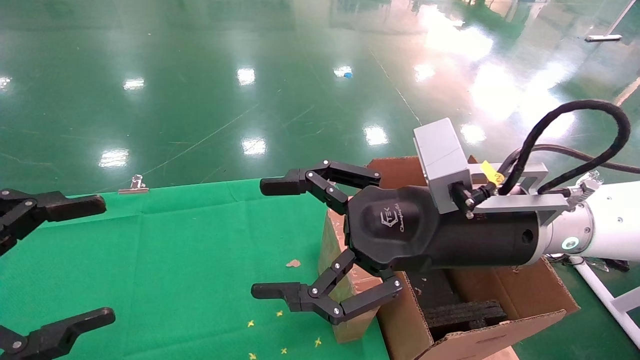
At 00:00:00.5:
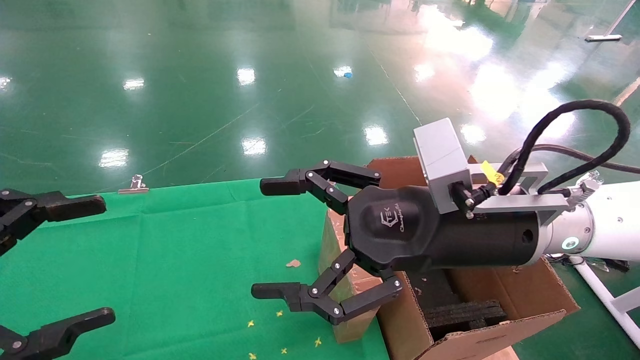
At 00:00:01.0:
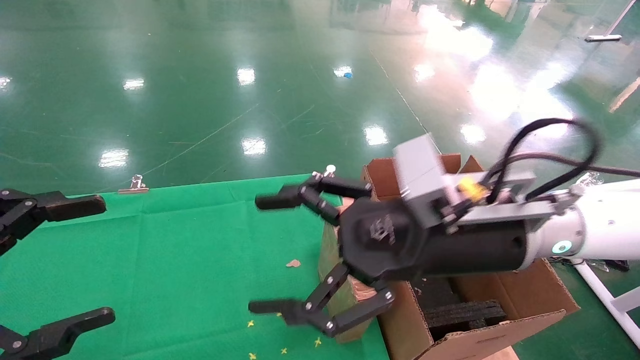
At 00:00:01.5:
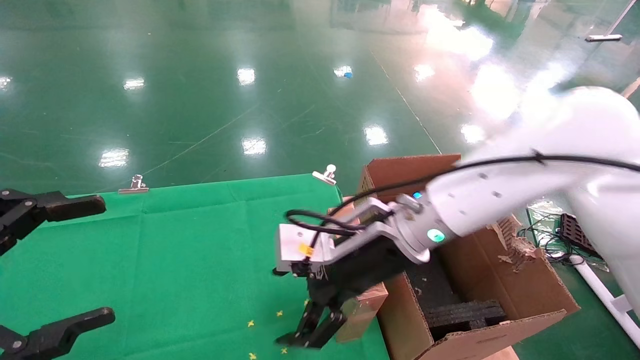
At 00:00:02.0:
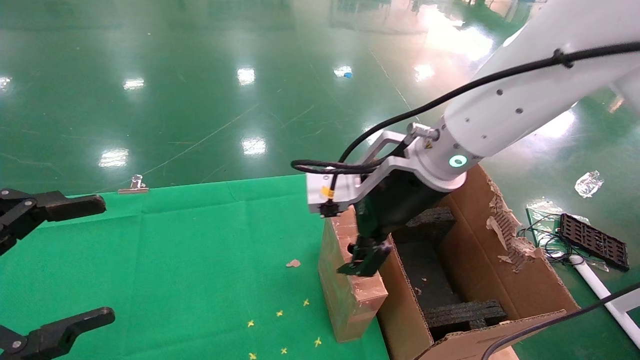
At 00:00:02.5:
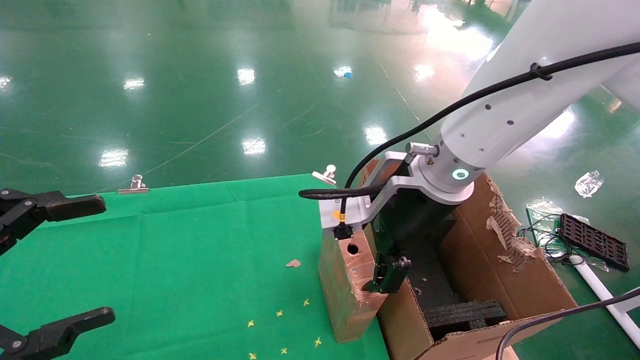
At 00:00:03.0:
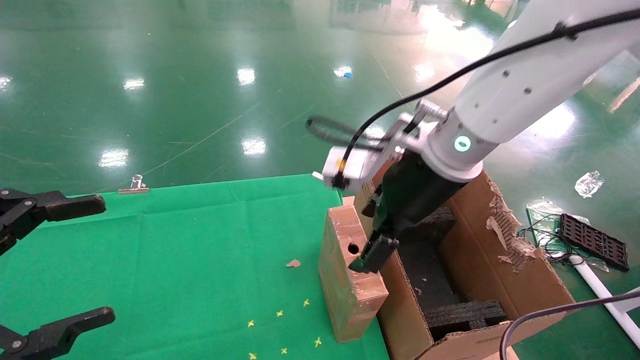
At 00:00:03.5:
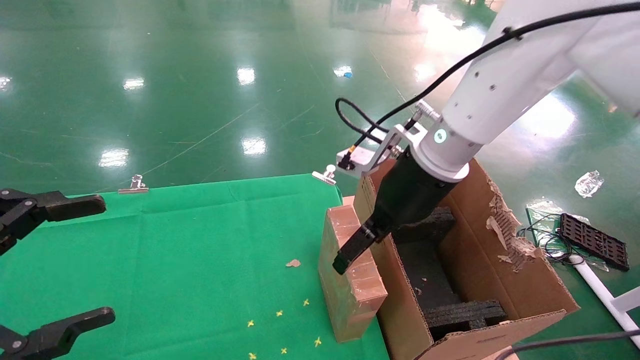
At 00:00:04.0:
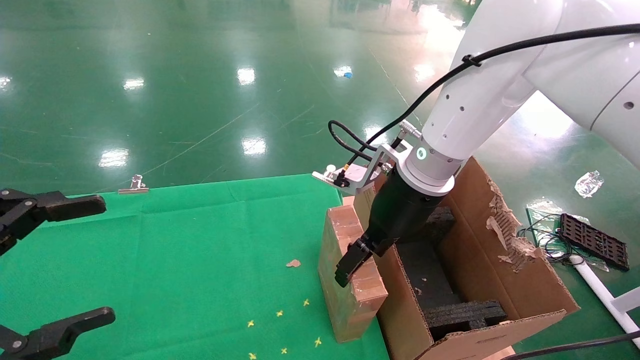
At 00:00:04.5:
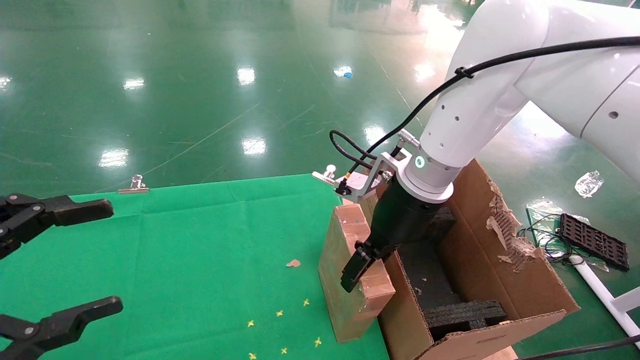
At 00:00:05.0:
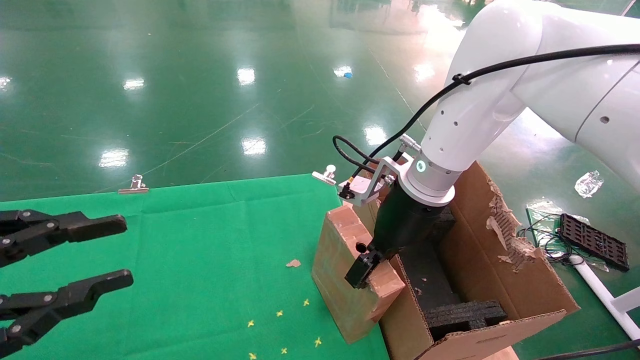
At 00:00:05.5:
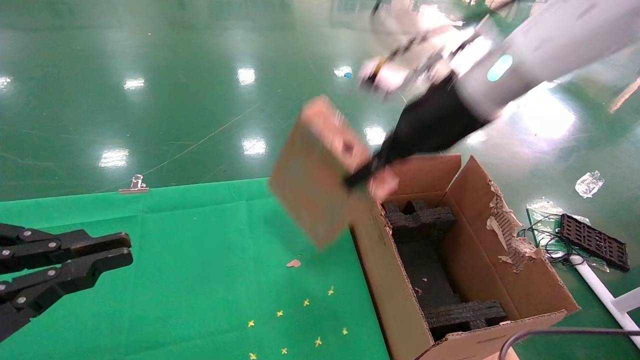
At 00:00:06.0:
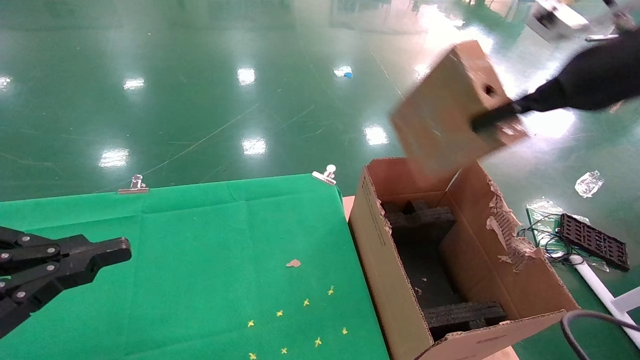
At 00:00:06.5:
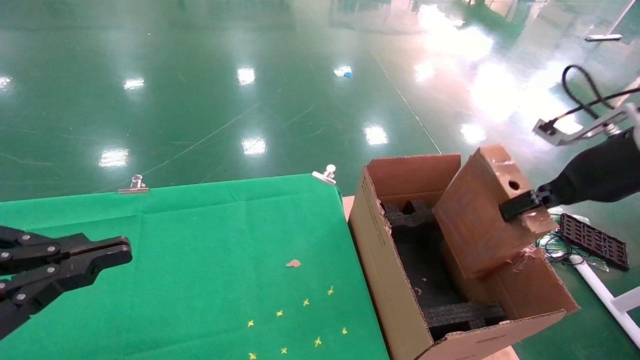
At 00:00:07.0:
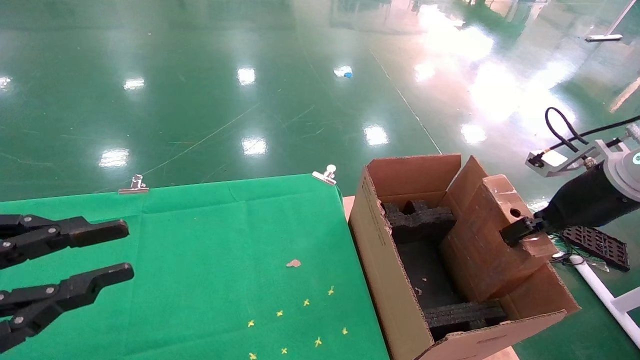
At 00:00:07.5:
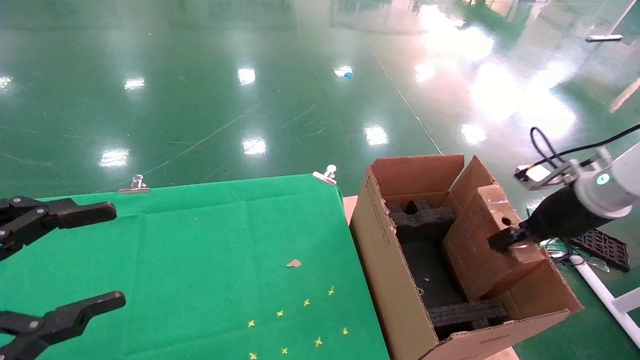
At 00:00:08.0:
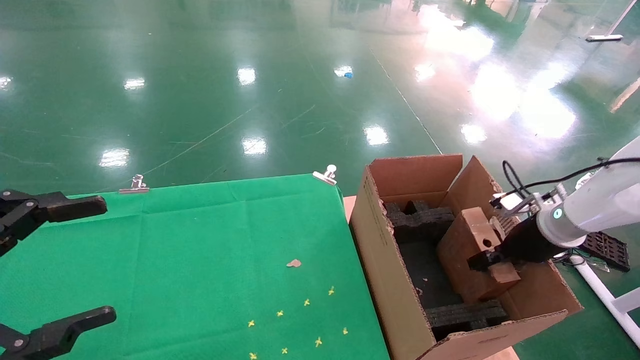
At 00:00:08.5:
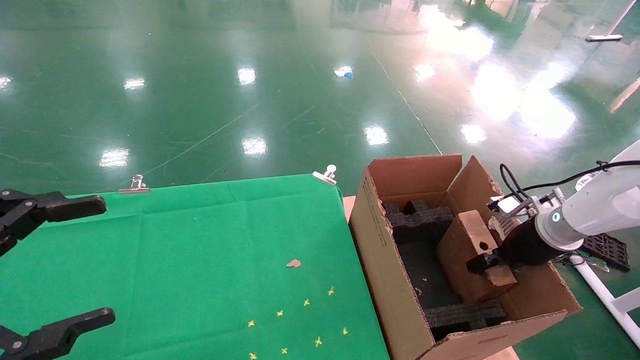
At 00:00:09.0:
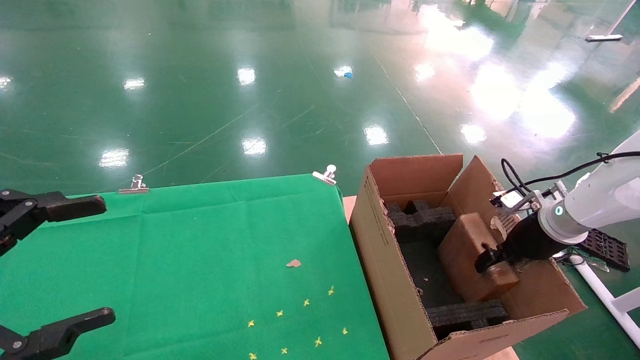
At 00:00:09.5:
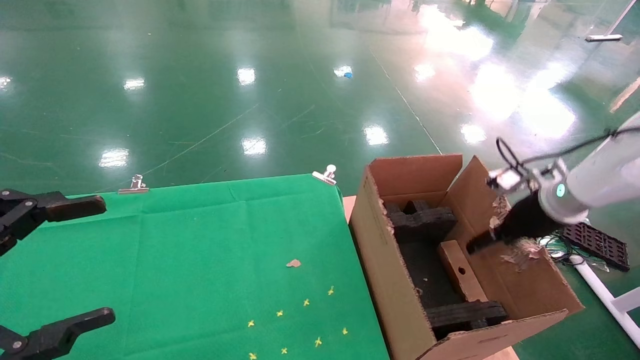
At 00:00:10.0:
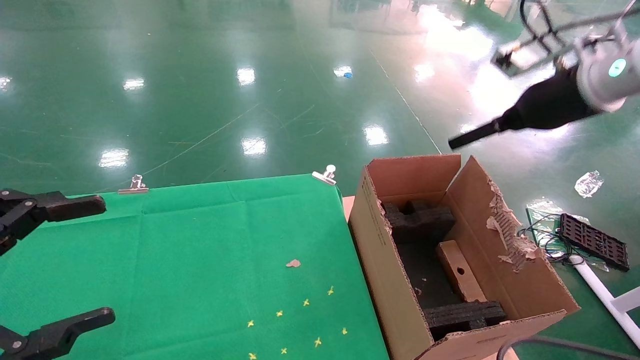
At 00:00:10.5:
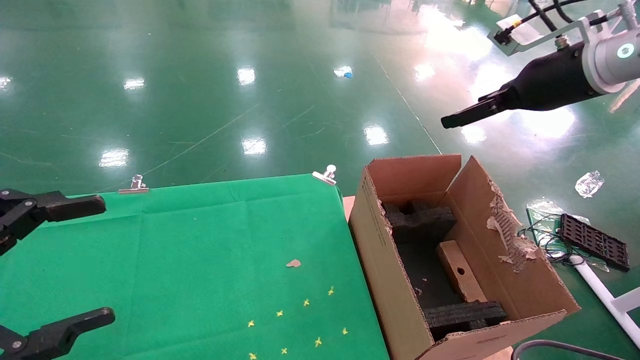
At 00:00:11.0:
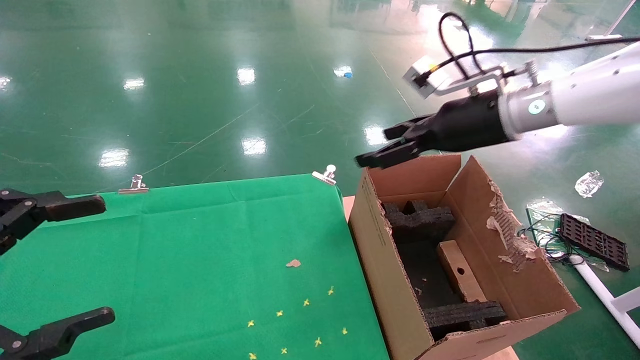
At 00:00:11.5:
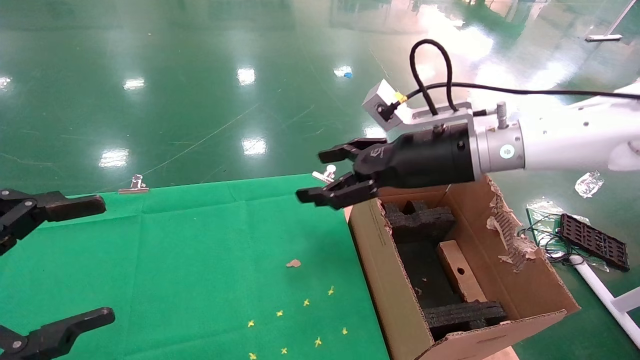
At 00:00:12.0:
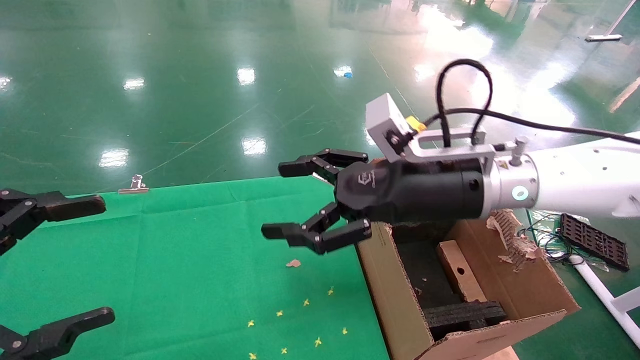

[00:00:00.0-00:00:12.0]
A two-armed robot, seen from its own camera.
Task of the whole recording: using a robotic arm to pick up a cardboard box and palace it the carton.
Step, 00:00:01.0 to 00:00:05.0: Pick up the mouse and the power cord paper box.
Step, 00:00:05.5 to 00:00:09.0: Place the mouse and the power cord paper box into the container.
00:00:00.0 to 00:00:02.0: The right gripper shifts some 10 cm forward.
00:00:02.0 to 00:00:04.0: The right gripper moves approximately 5 cm.
00:00:04.0 to 00:00:06.0: The right gripper moves to the right, upward and backward, about 25 cm, and closes up. Meanwhile the left gripper closes its fingers.
00:00:06.0 to 00:00:08.0: The left gripper opens its fingers, while the right gripper heads downward, covering some 25 cm.
00:00:08.0 to 00:00:10.0: The right gripper moves upward, some 20 cm, and opens.
00:00:10.0 to 00:00:12.0: The right gripper heads to the left, covering some 20 cm.

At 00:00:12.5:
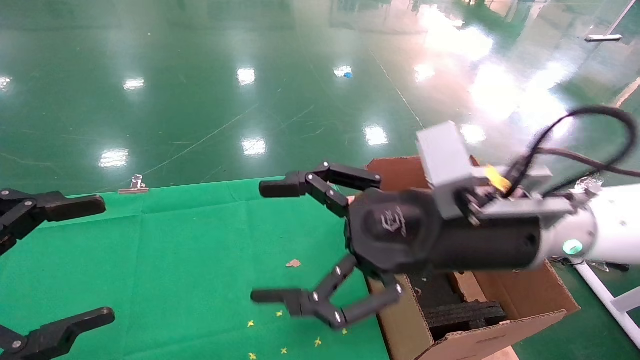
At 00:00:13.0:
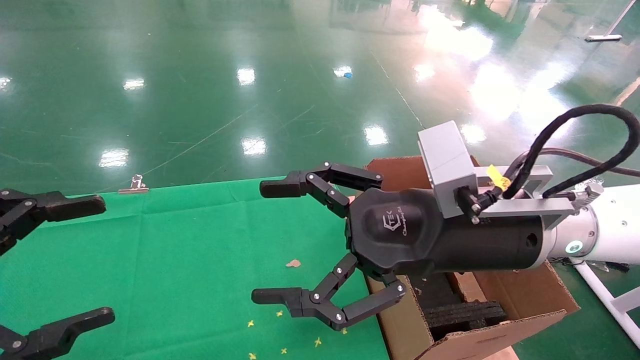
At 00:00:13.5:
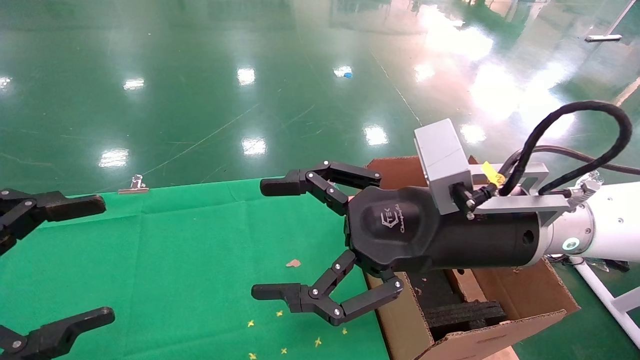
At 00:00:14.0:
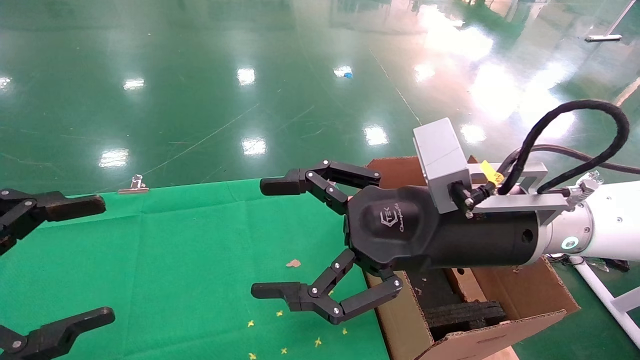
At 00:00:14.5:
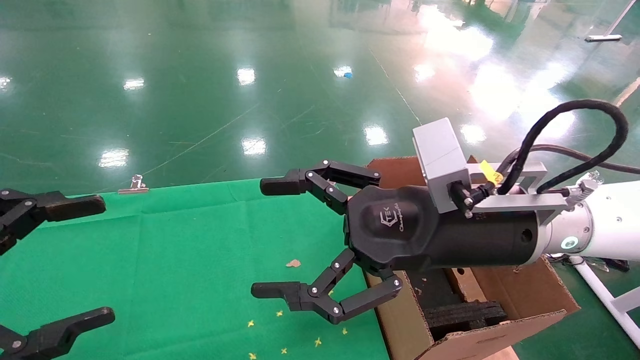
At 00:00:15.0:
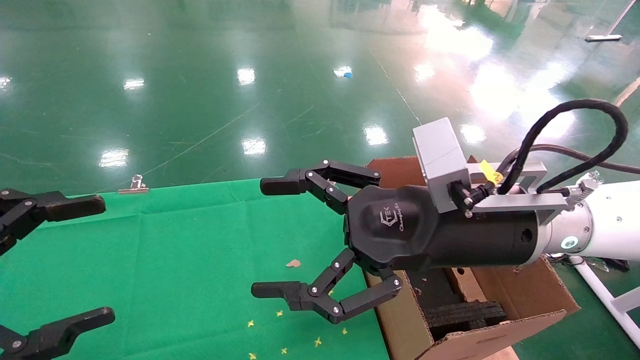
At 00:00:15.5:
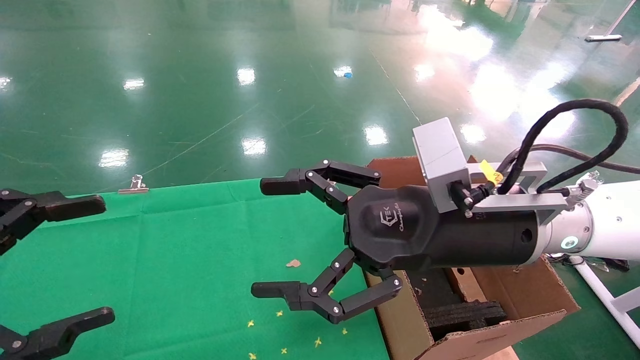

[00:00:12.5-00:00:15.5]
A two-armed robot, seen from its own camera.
Task of the whole recording: using a robotic arm to pick up a cardboard box and palace it the carton.
00:00:12.5 to 00:00:15.5: Neither gripper changes place.
